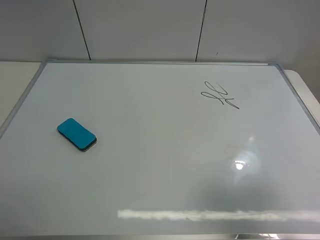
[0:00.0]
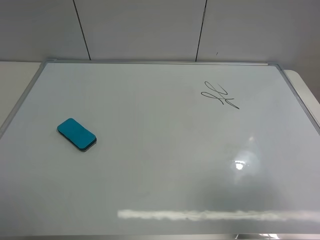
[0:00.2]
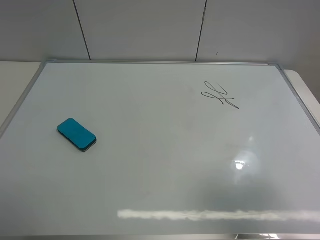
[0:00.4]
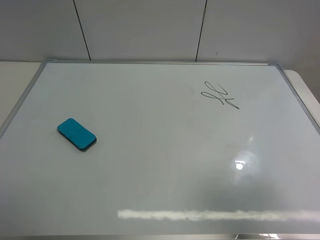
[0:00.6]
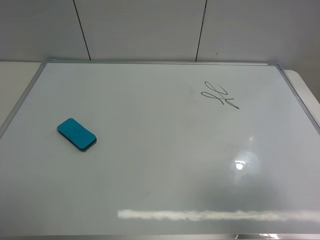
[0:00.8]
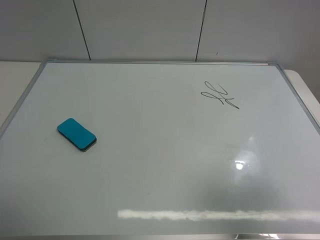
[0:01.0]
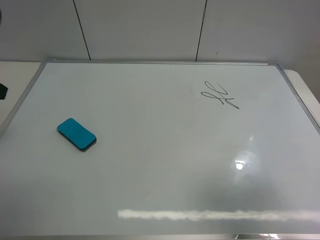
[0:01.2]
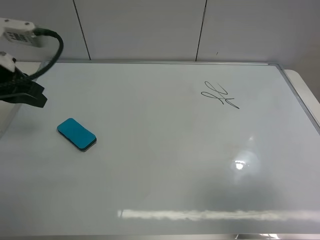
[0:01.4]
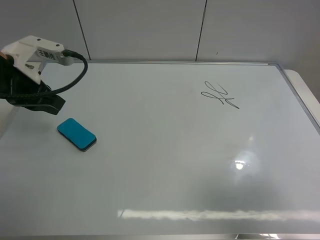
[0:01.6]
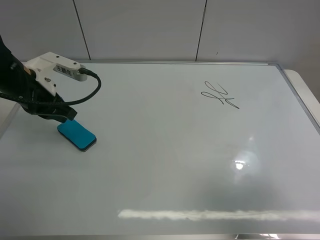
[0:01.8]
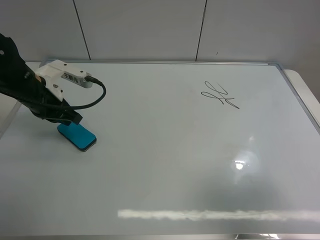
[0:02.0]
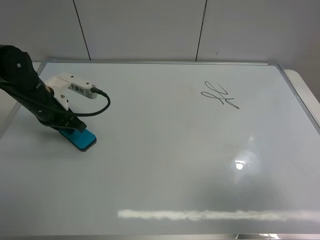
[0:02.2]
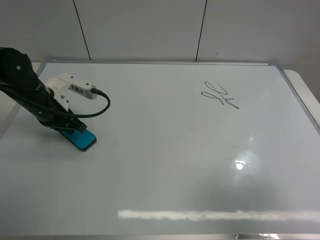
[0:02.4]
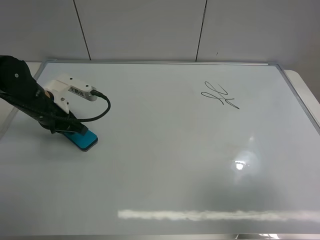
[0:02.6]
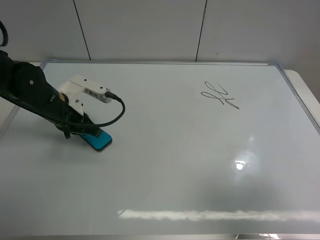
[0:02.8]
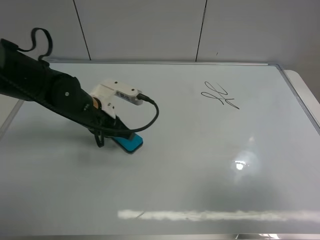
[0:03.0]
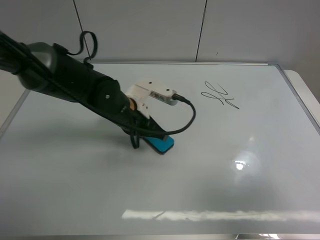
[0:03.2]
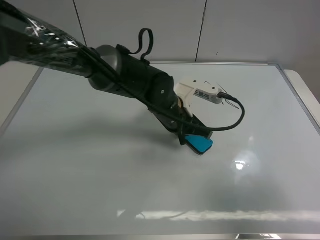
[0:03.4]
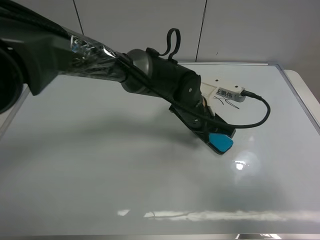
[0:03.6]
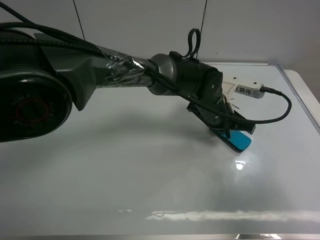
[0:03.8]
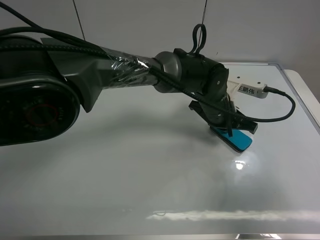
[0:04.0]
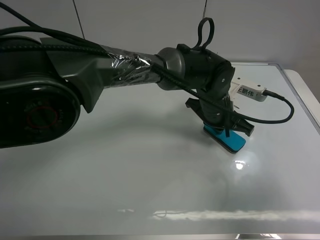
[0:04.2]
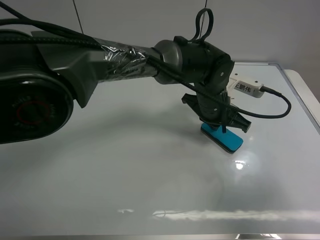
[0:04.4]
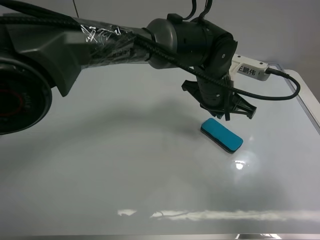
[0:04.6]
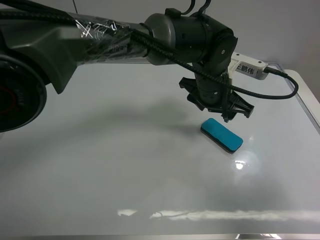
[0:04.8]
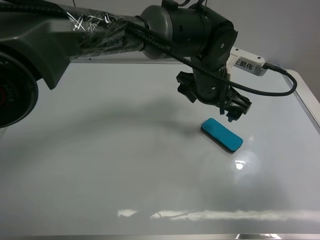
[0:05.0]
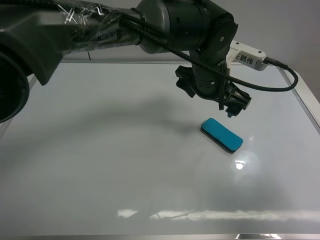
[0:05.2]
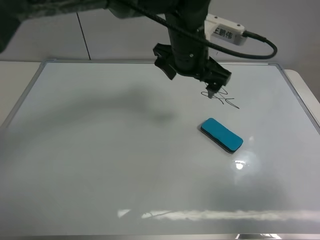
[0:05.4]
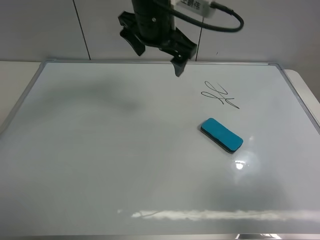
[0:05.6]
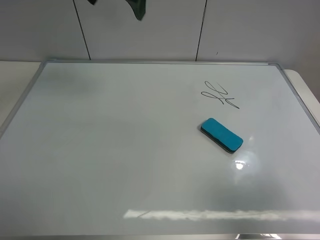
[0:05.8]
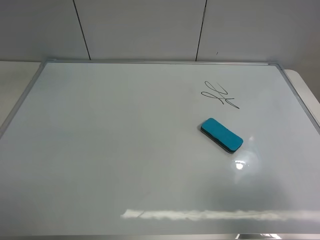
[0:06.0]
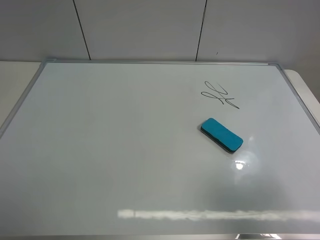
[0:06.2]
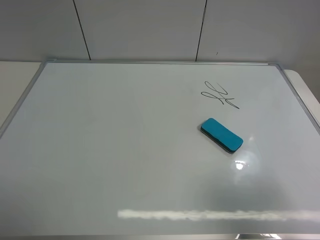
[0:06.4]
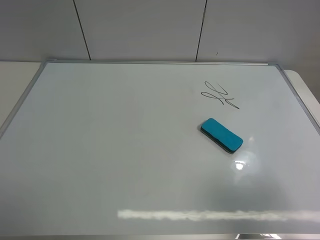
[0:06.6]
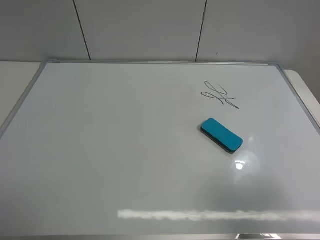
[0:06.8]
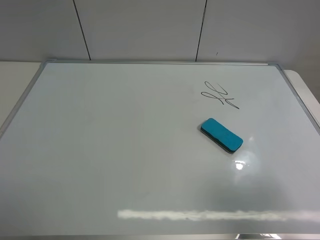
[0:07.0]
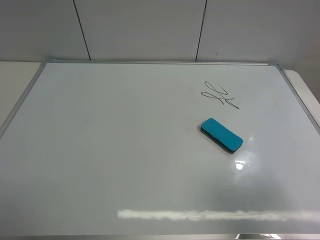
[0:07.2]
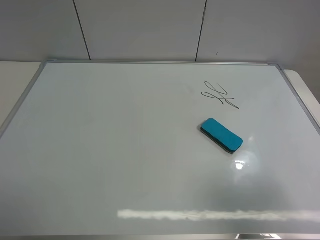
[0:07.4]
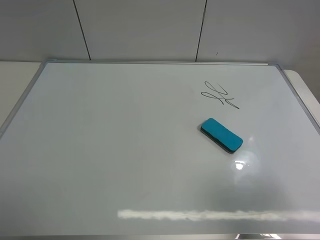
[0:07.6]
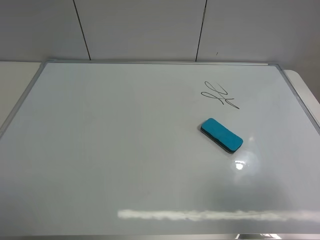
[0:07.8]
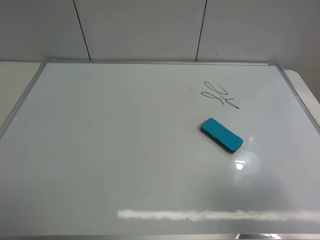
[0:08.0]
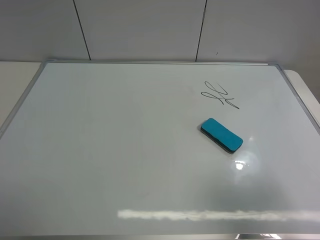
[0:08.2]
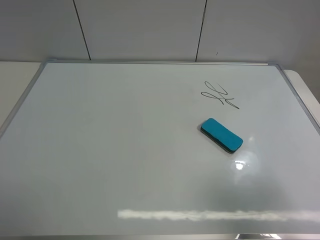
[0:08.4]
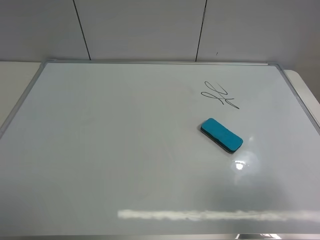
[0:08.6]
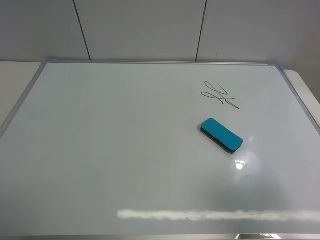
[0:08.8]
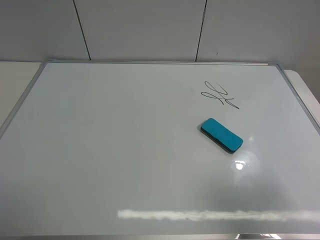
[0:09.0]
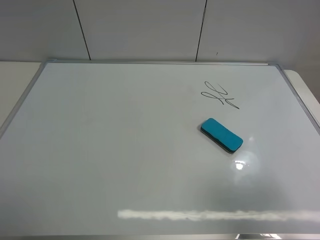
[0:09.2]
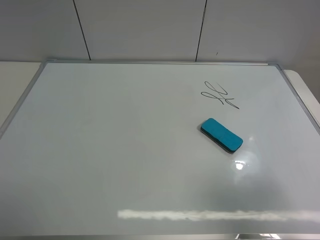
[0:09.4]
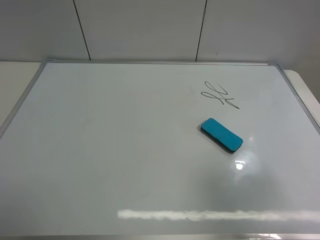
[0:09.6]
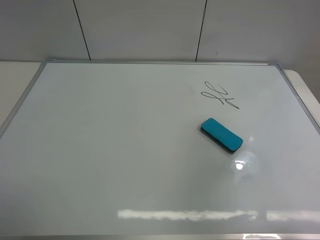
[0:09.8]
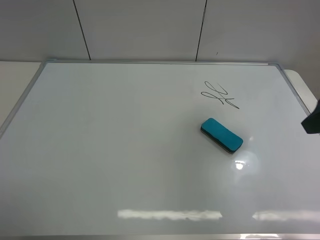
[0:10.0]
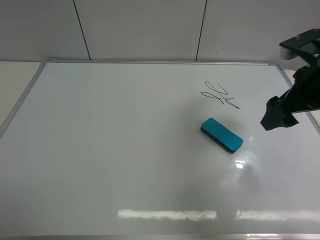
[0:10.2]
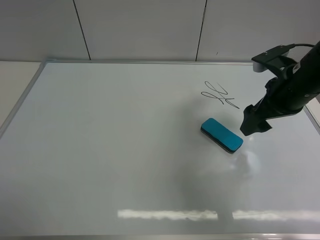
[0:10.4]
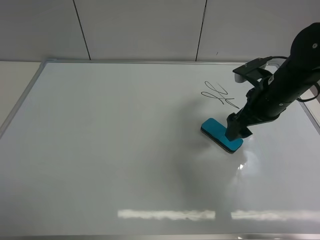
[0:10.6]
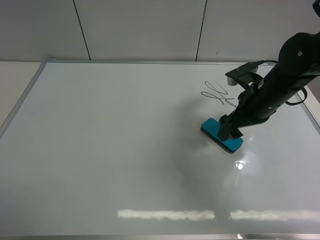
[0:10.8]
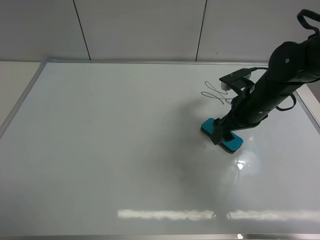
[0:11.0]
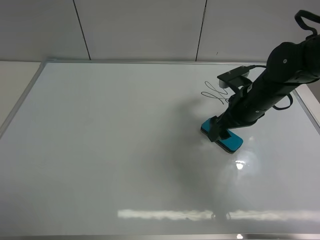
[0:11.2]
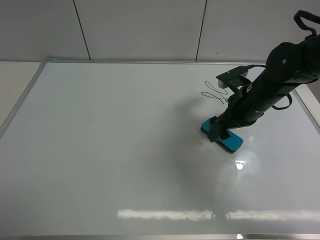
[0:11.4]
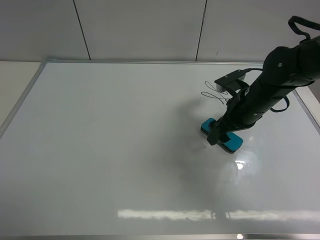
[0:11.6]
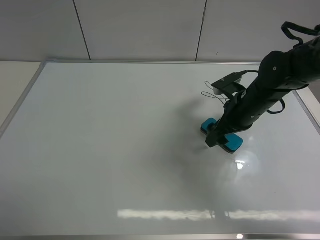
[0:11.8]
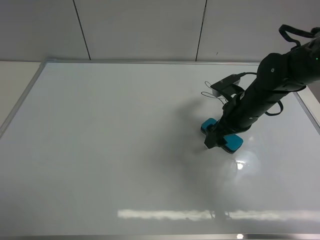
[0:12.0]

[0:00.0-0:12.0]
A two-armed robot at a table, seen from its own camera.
Task of the whole recording: use the left gripper to place the eraser in the right, use the right gripper to pick up the eraser, wipe the notes on the whiteboard clean, and then put it down.
Step, 0:00.0 to 0:04.4: Move the board eraser to the right of the whiteboard with left gripper.
0:00.0 to 0:01.6: The left gripper heads forward, covering about 25 cm, and closes up.
0:01.6 to 0:03.0: The left gripper goes roughly 15 cm to the right and downward.
0:03.0 to 0:04.4: The left gripper goes about 25 cm to the right.
0:04.4 to 0:06.0: The left gripper goes approximately 40 cm upward and to the left, and opens.
0:07.6 to 0:09.0: Both grippers stay about where they are.
0:09.0 to 0:10.4: The right gripper is displaced forward by about 25 cm.
0:10.4 to 0:12.0: The right gripper is displaced downward by approximately 10 cm.

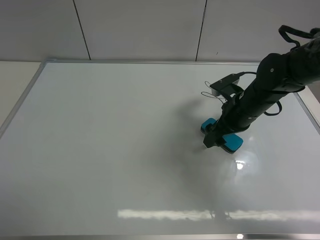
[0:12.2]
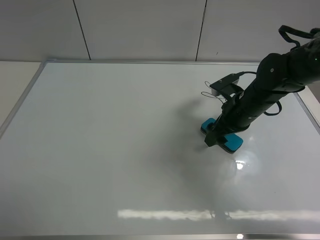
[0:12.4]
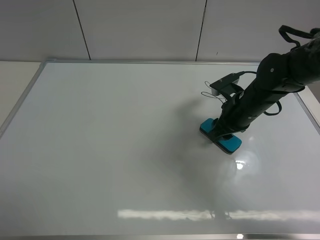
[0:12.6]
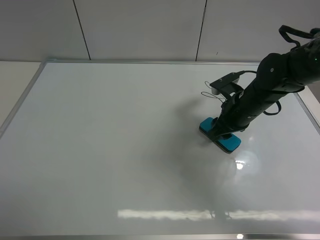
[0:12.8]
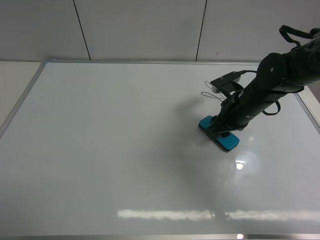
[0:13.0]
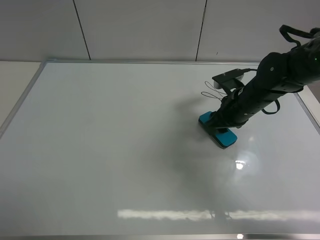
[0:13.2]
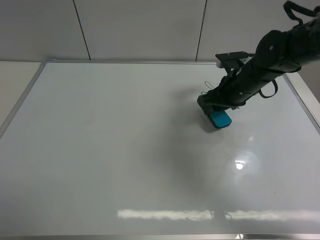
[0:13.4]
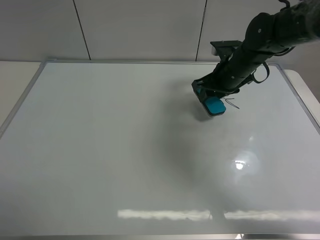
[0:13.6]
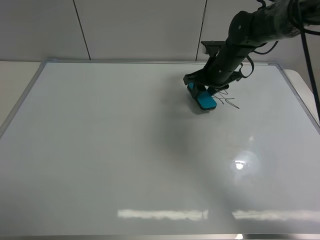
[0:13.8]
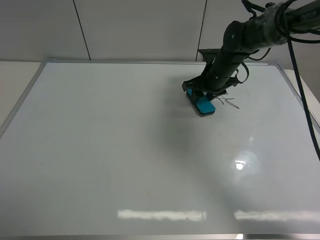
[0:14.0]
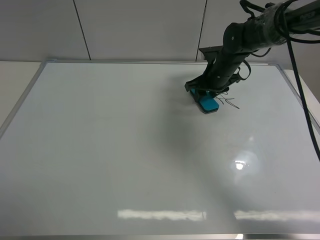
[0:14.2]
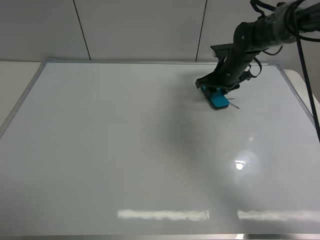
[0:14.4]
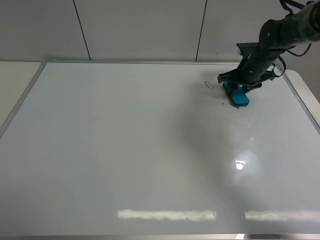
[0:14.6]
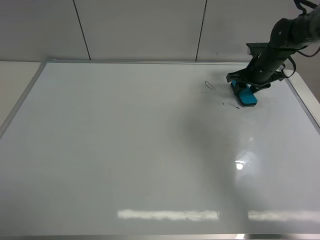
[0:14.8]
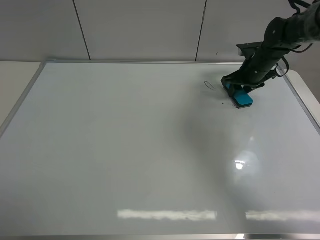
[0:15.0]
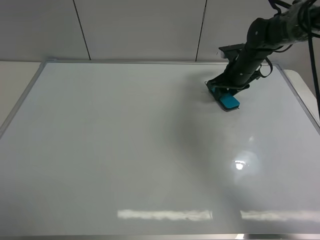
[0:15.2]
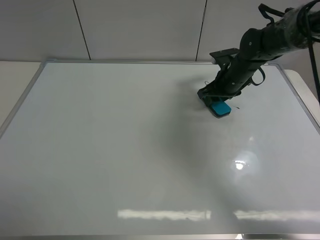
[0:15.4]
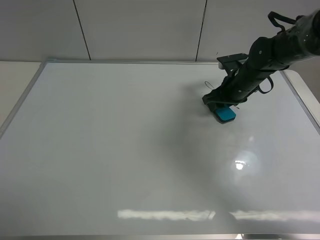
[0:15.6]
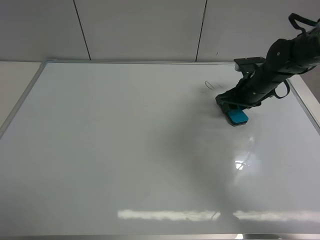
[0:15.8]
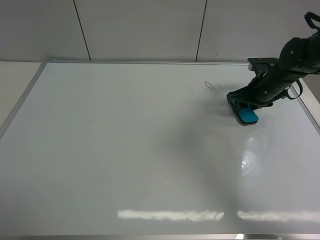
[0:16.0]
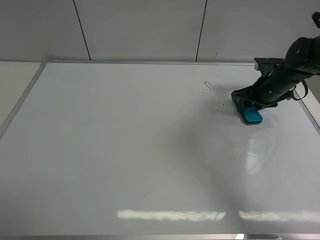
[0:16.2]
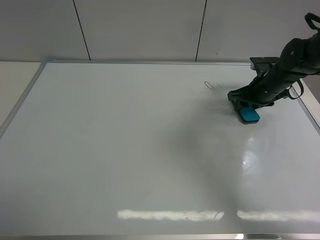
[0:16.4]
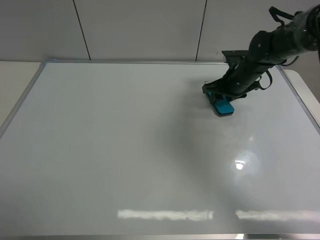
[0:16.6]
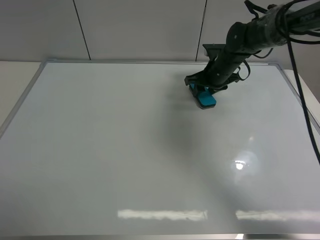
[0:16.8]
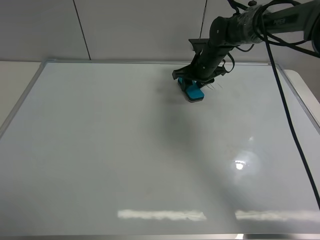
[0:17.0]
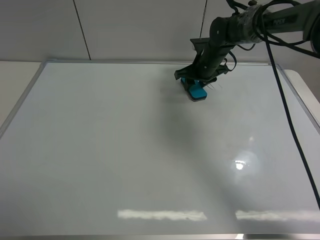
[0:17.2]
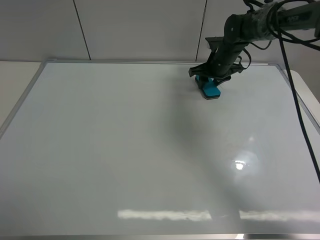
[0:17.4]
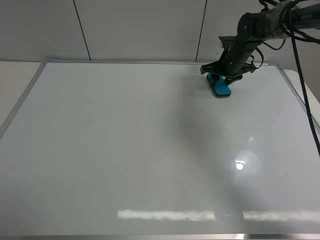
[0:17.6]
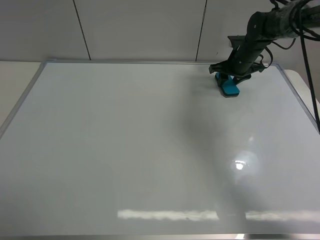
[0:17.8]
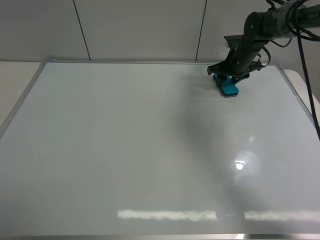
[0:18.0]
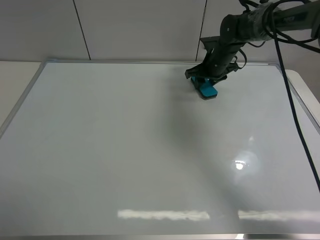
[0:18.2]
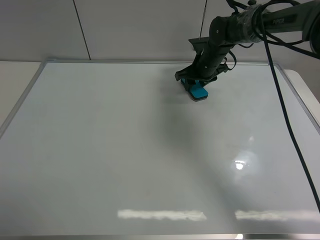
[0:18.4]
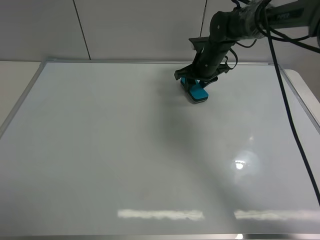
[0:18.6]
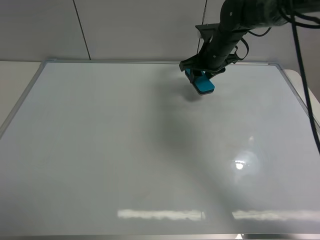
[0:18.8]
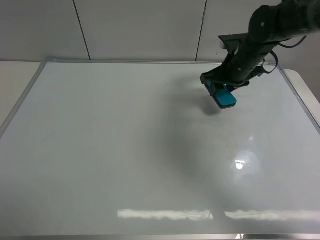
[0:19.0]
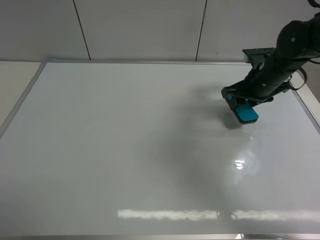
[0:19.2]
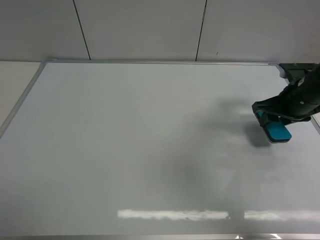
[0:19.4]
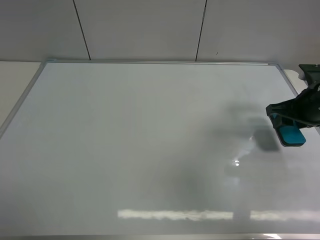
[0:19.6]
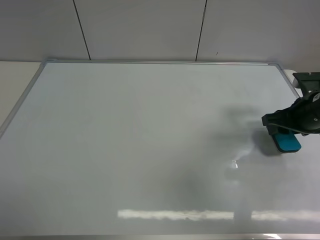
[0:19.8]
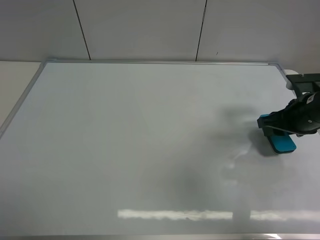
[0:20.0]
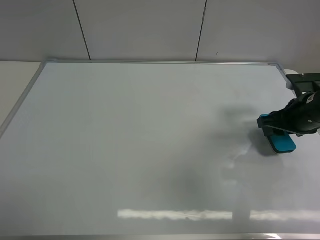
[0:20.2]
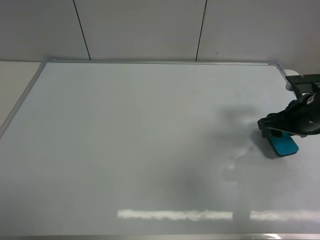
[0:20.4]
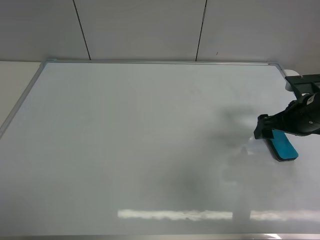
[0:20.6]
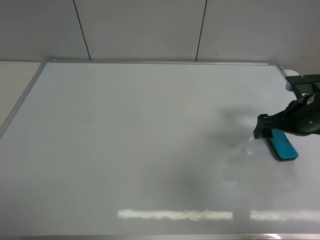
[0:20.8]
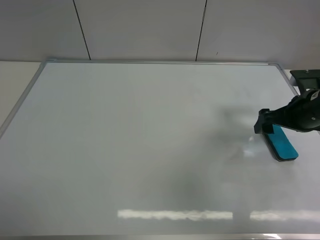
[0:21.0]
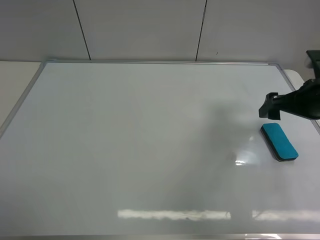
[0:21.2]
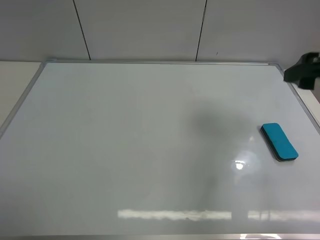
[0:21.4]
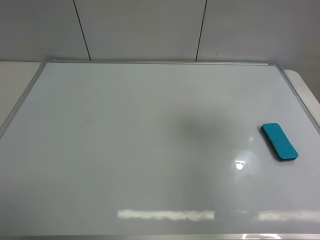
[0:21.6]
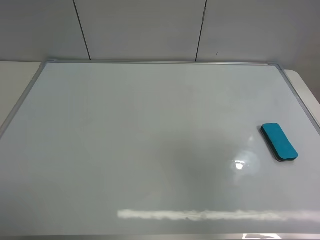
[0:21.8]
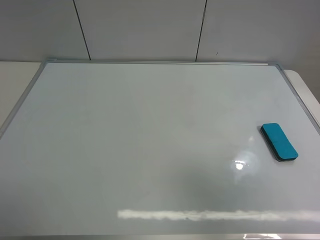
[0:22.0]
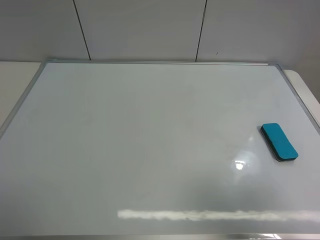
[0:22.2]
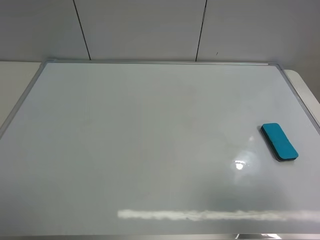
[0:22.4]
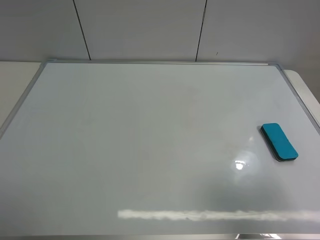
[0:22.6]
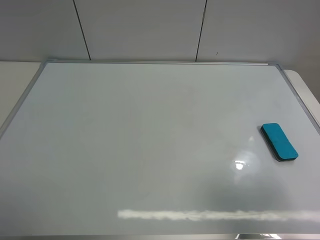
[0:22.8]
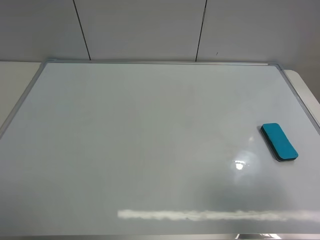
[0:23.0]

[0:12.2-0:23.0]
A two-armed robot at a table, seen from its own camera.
Task of the whole recording: use the left gripper to place the eraser in the right, use the right gripper to pick up the eraser, wipe the notes on the whiteboard clean, and then put it down.
Step, 0:13.4 to 0:18.4: Wipe off the writing on the board with right gripper.
Step, 0:18.6 to 0:21.0: Place the board eraser on the right side of board with right gripper.
0:12.2 to 0:13.8: The right gripper goes about 10 cm forward, and closes its fingers.
0:13.8 to 0:15.2: The right gripper shifts approximately 5 cm to the right.
0:15.2 to 0:16.8: The right gripper moves to the left, about 5 cm.
0:16.8 to 0:18.4: The right gripper travels to the right and back again, roughly 10 cm each way.
0:18.4 to 0:20.0: The right gripper goes some 25 cm backward and to the right.
0:20.0 to 0:21.4: The right gripper shifts about 15 cm upward and backward, and opens up.
0:21.4 to 0:23.0: The right gripper goes roughly 20 cm backward.
